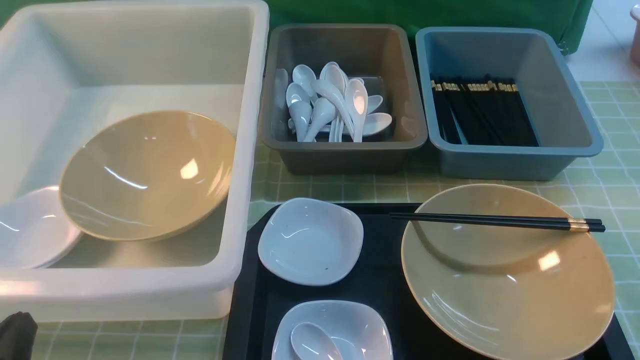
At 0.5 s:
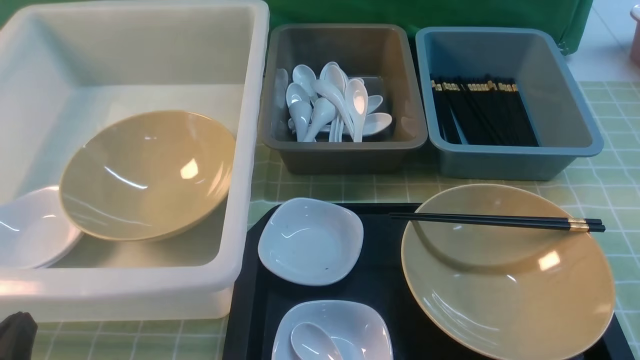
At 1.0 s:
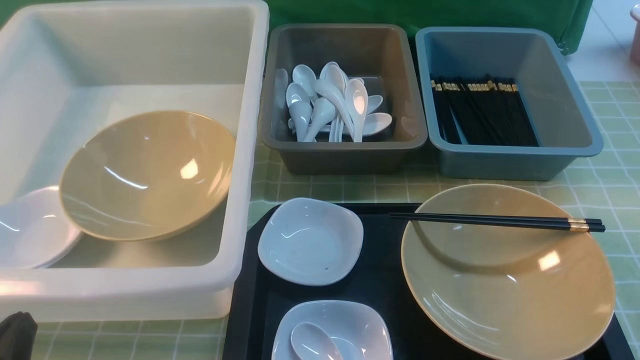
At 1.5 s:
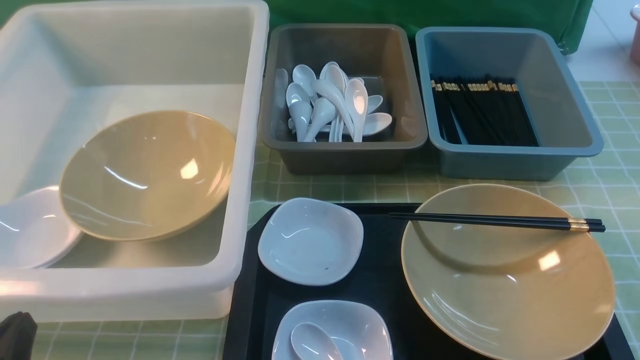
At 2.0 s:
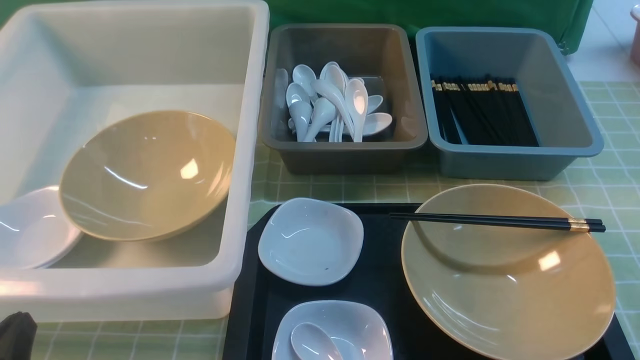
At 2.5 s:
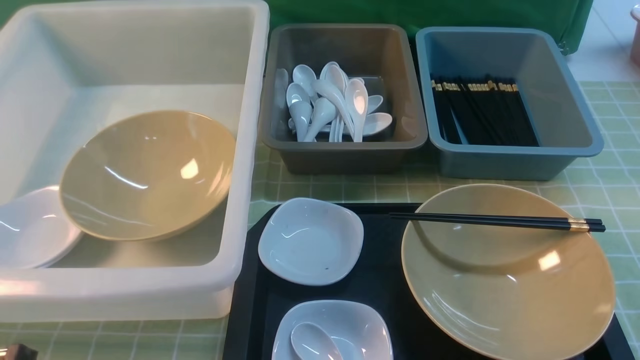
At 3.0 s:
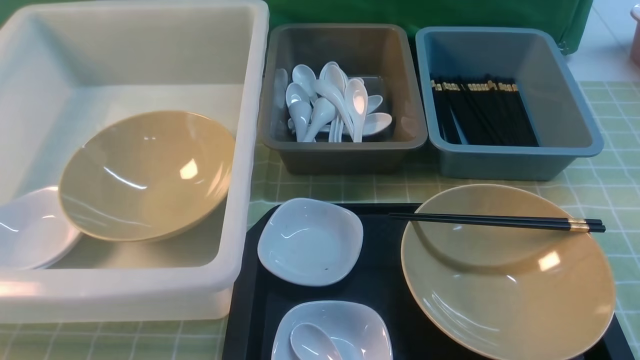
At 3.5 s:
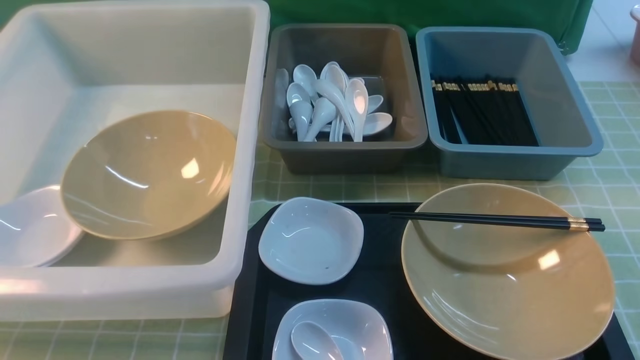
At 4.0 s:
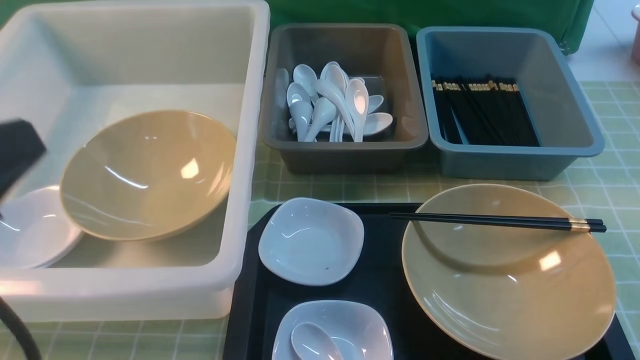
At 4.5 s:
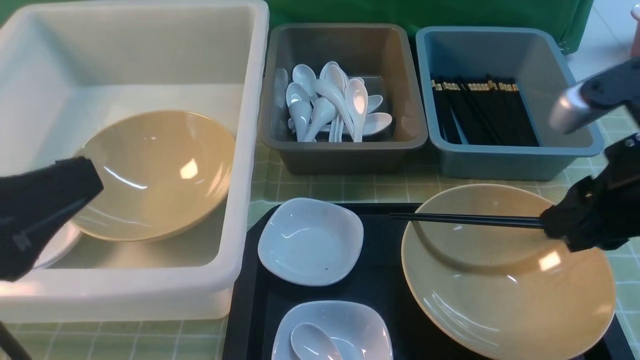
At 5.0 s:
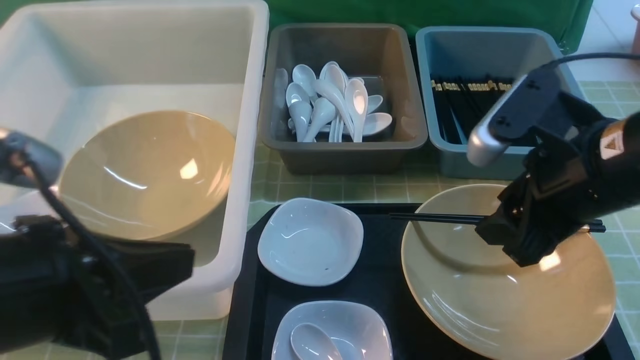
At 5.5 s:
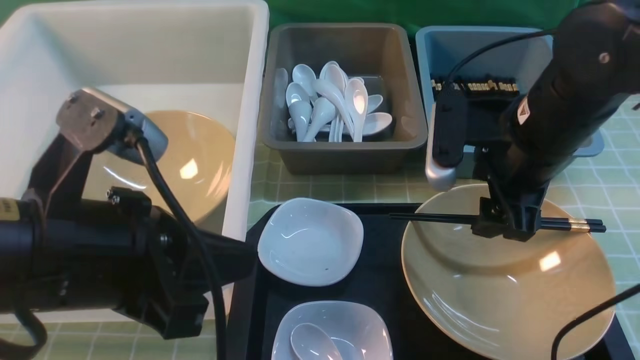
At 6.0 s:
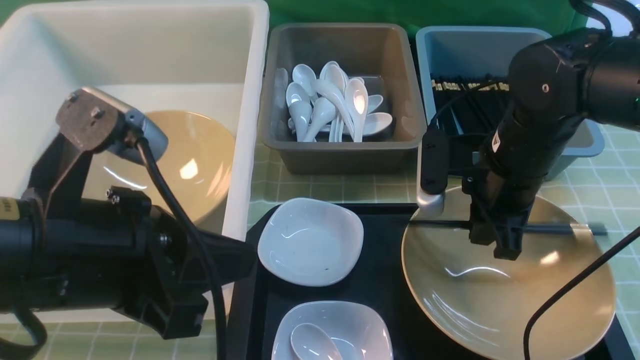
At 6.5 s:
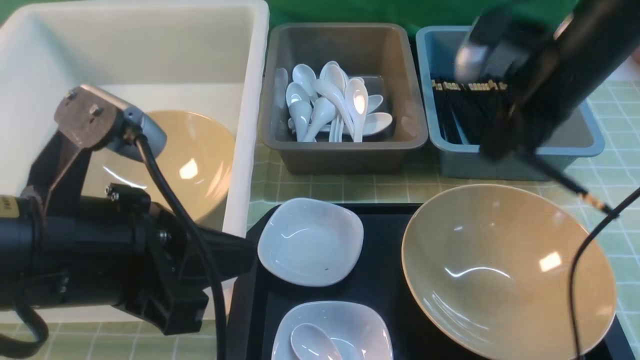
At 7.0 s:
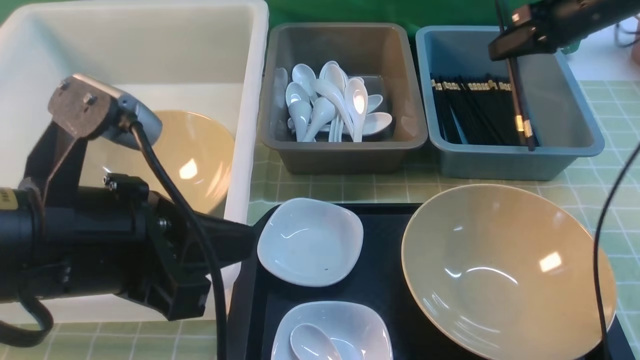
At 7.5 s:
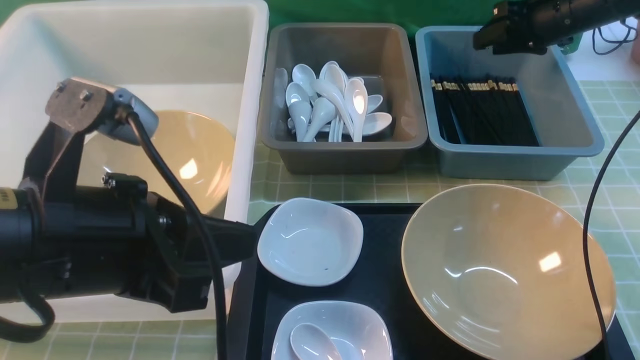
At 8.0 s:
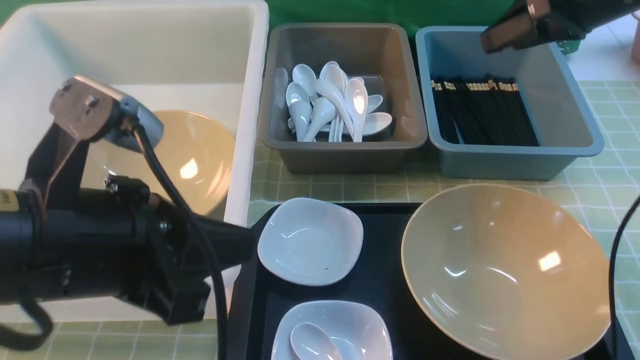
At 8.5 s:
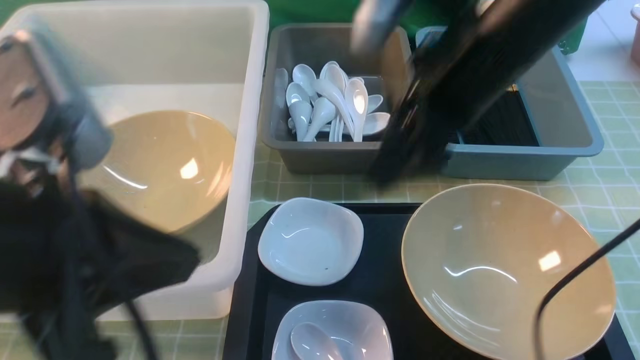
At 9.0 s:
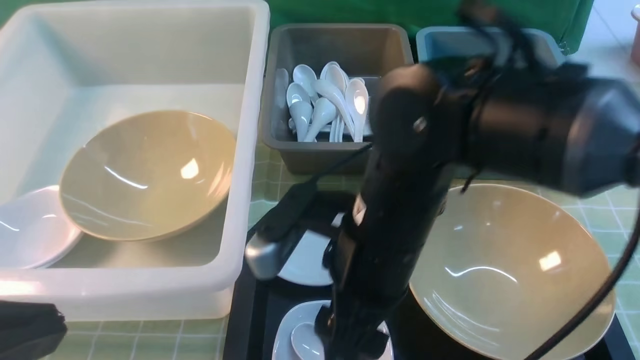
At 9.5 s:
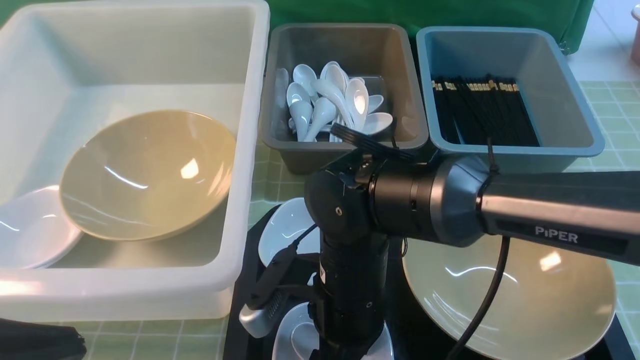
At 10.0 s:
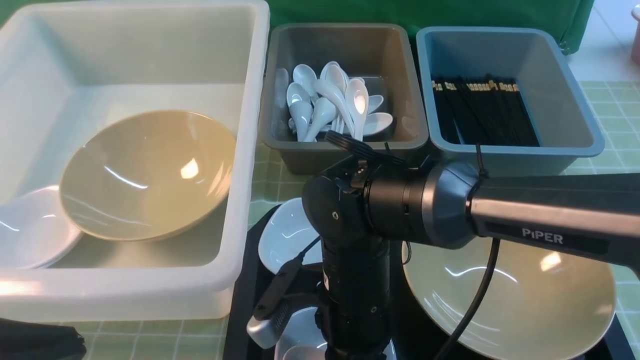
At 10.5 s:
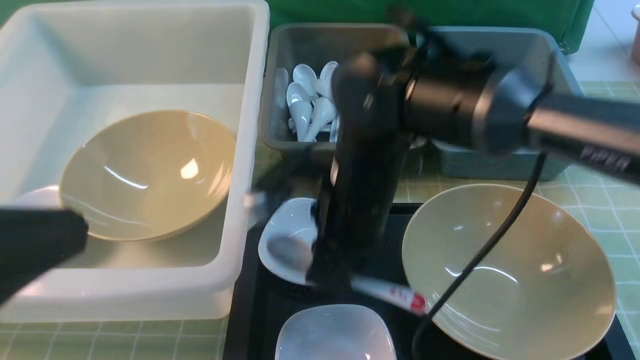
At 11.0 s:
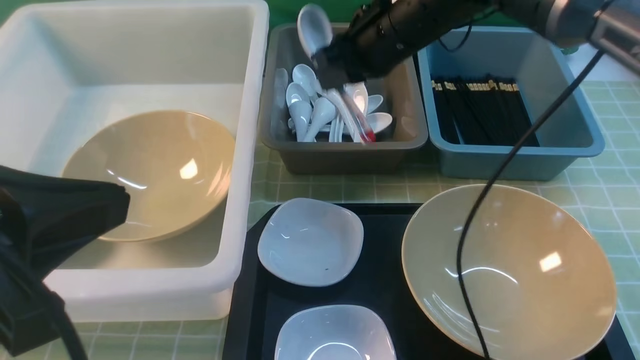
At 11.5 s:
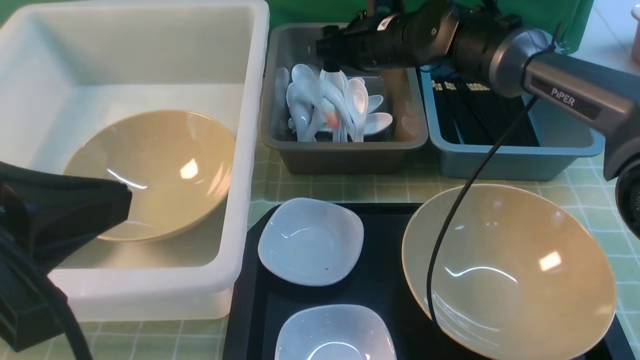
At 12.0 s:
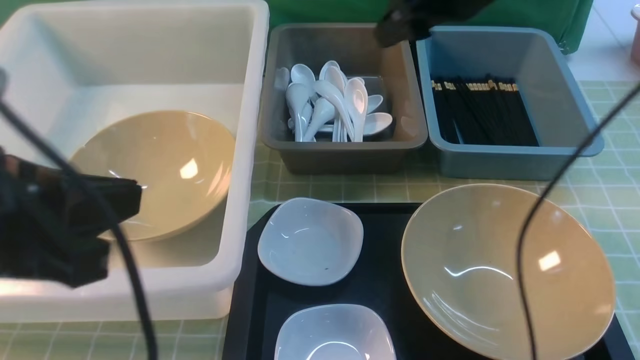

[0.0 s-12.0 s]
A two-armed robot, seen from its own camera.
Task of the whole recording: on green table put chopsticks spoon bowls plates into blue grey white boxes.
Step, 0.0 to 6.5 s: use the right arm to grab the chopsticks.
Step, 7.0 to 7.5 s: use the right arm to put the chopsticks into the small storage box on the right.
Step, 8.5 to 10.5 s: use the right arm to grab the soup spoon in the middle.
0.0 to 2.0 s: The two grippers keep their place.
2.0 to 4.0 s: The left gripper is displaced upward by some 20 cm.
4.0 to 6.0 s: The right gripper shifts roughly 25 cm forward, downward and to the left, and opens, then closes again, while the left gripper travels to the right by roughly 5 cm.
6.0 to 8.0 s: The right gripper is displaced upward, forward and to the right by some 15 cm, and opens.
8.0 to 10.0 s: The left gripper is displaced backward and to the left by about 10 cm, while the right gripper shifts roughly 35 cm to the left, backward and downward, and closes up.
10.0 to 12.0 s: The right gripper shifts approximately 30 cm upward, forward and to the right, and opens up. Meanwhile the left gripper moves forward, about 10 cm.

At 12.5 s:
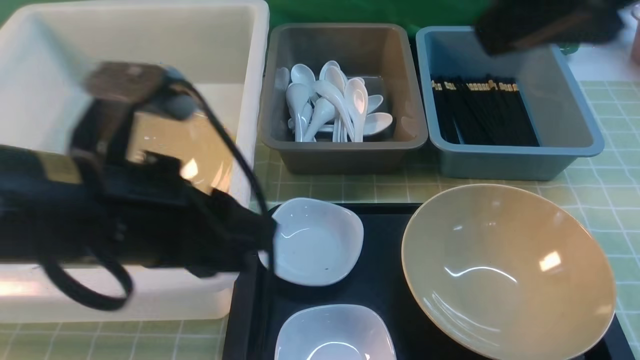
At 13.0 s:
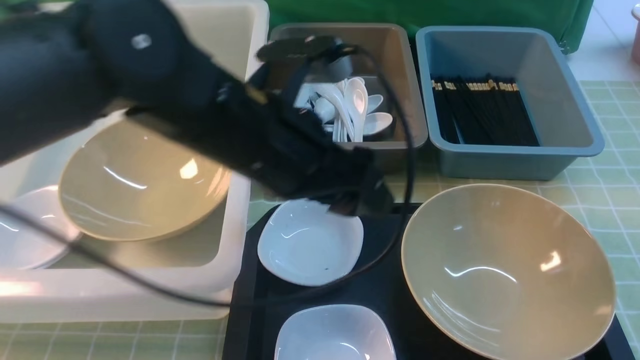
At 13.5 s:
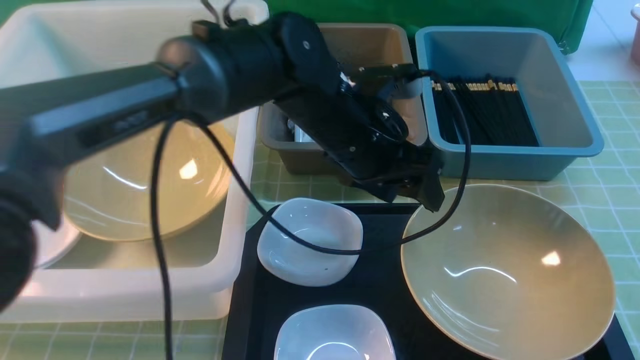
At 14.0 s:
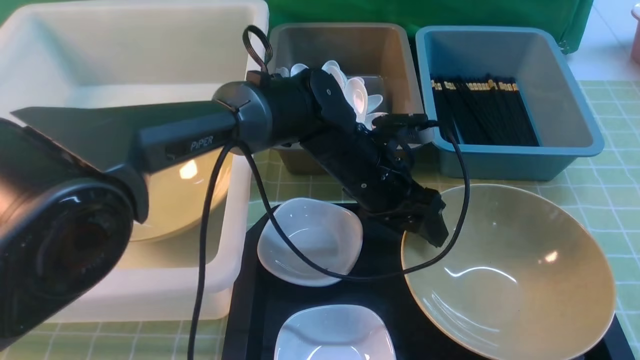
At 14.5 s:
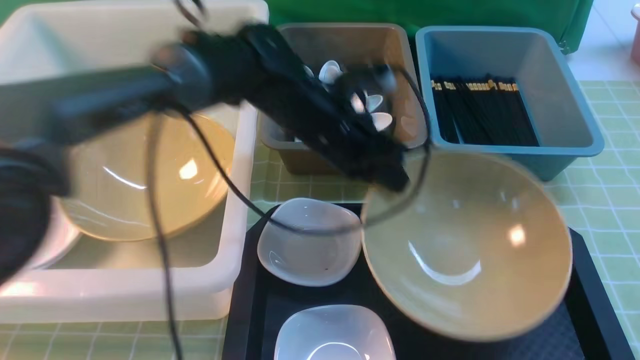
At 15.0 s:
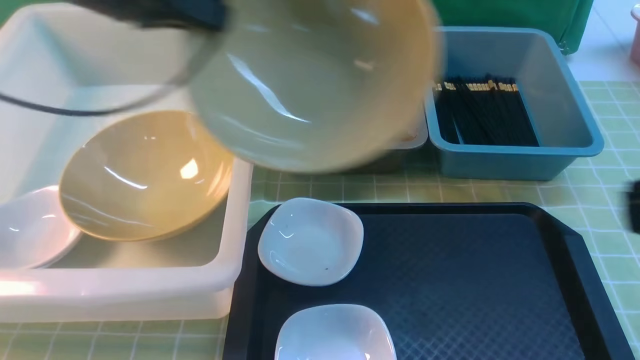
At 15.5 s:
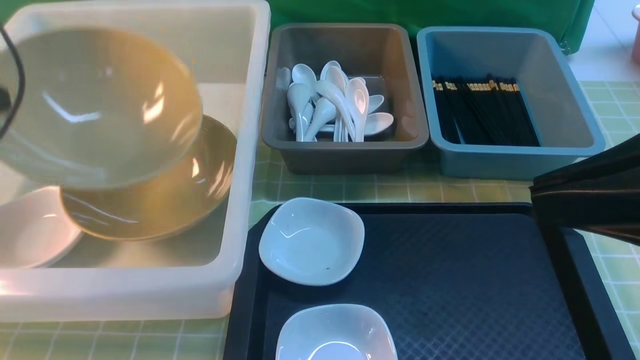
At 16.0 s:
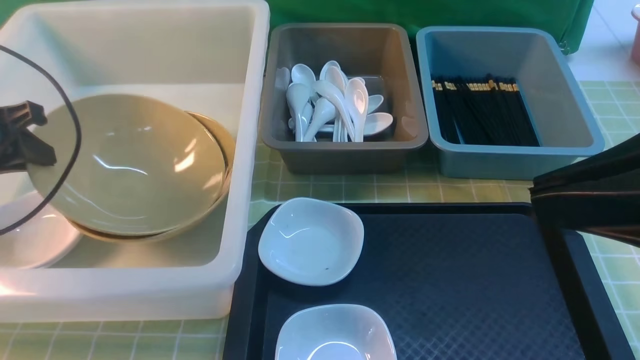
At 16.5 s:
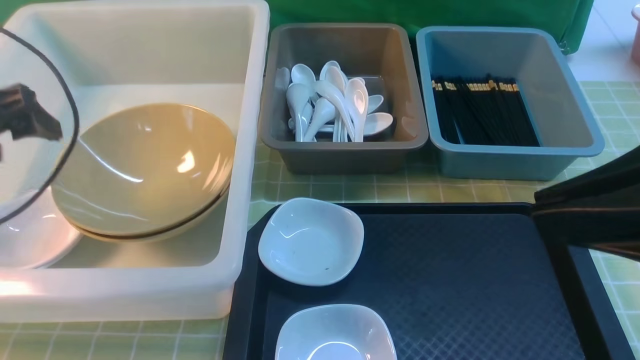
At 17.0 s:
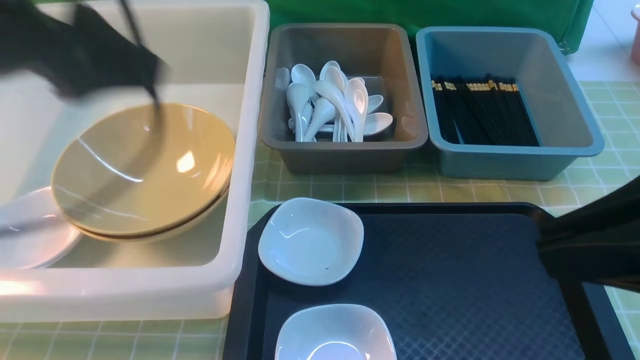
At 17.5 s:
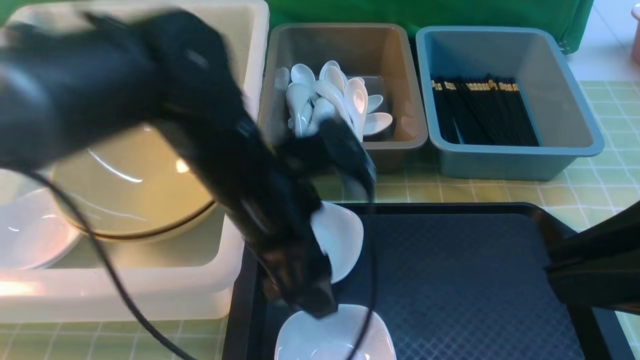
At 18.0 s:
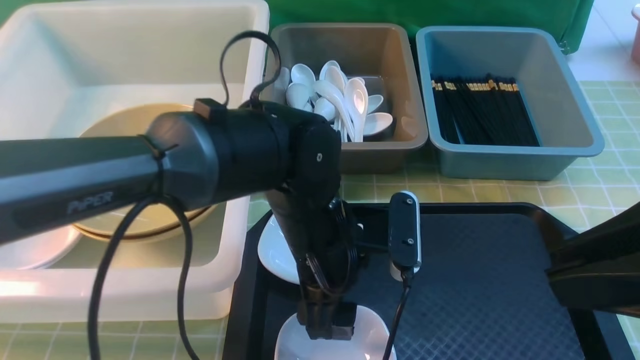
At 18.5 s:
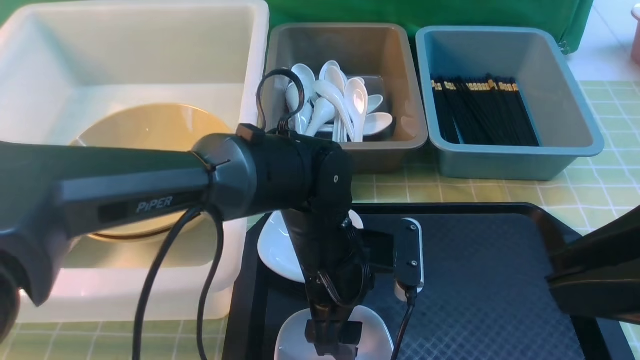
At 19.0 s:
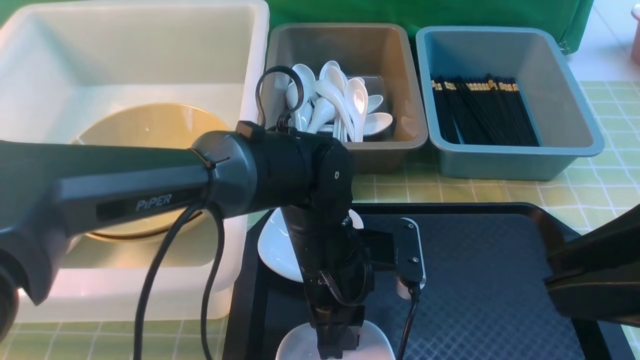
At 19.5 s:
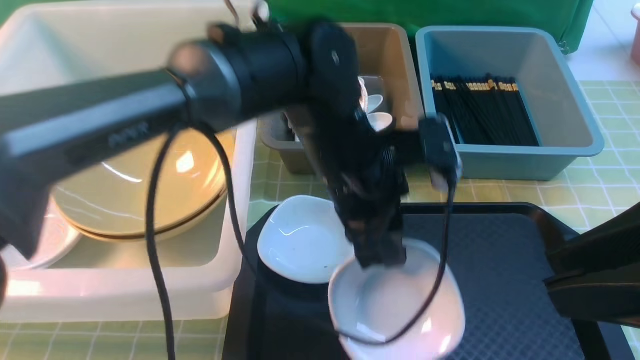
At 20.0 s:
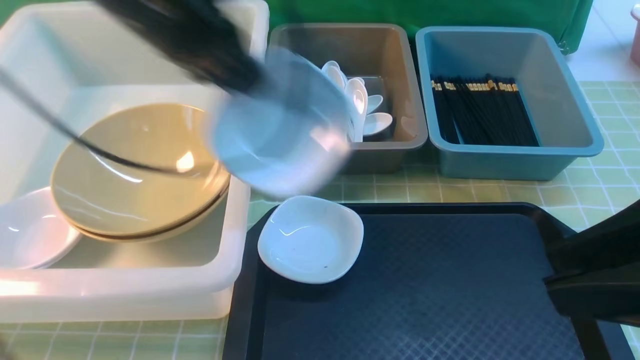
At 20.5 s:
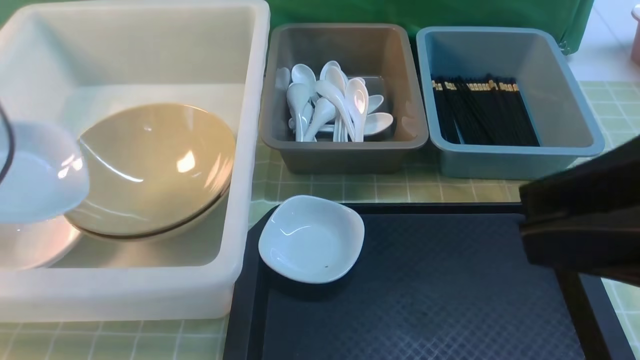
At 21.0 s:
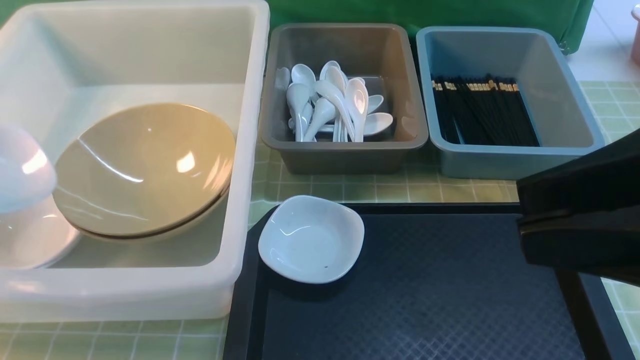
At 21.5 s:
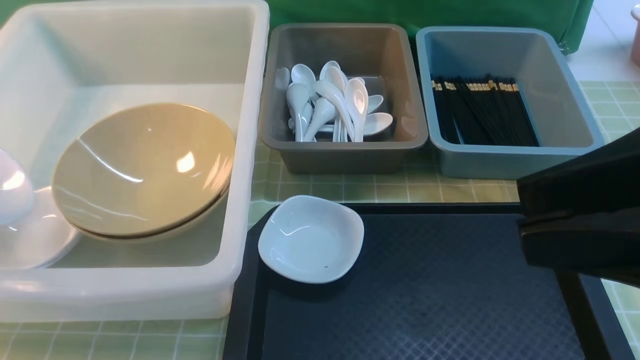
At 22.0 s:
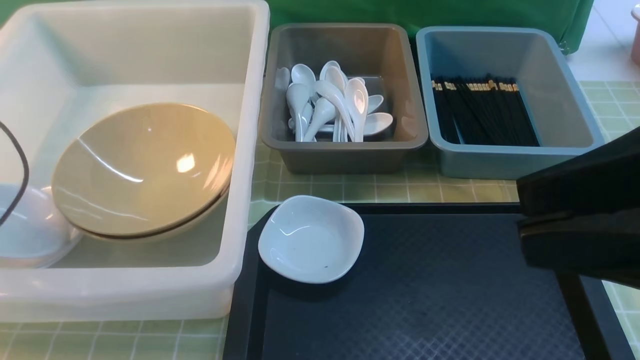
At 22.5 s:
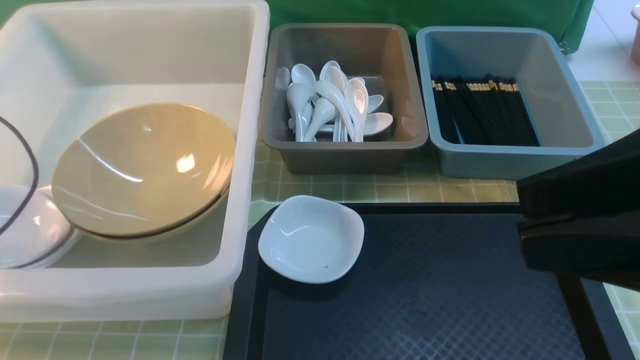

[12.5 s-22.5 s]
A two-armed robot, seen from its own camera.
Task of the whole recording: on green table put chopsticks spoon bowls plates into blue grey white boxes.
Step, 13.5 to 14.5 s: use the left arm to grab the yellow noodle bowl on the left.
Step, 15.0 to 17.0 s: use the left arm to put the noodle bowl into the large storage box on the left.
Step, 17.5 to 19.0 s: use the left arm to grab the plate.
12.5 to 14.5 s: The right gripper goes roughly 15 cm backward, downward and to the right, and closes its fingers. The left gripper shifts roughly 20 cm forward and to the right, and closes up.
14.5 to 16.5 s: The left gripper shifts about 30 cm to the left, and opens its fingers. Meanwhile the right gripper heads forward, covering roughly 5 cm.
16.5 to 18.5 s: The left gripper heads to the right and downward, covering about 35 cm.
18.5 to 20.5 s: The left gripper moves to the left, some 40 cm, and closes.
20.5 to 22.5 s: The left gripper opens up.
